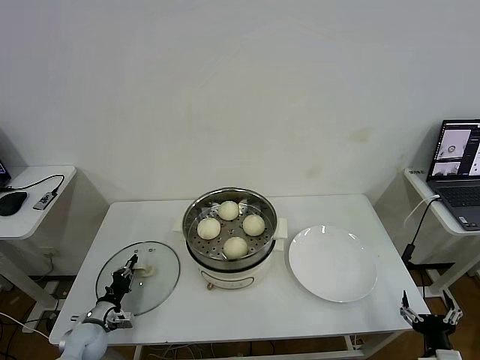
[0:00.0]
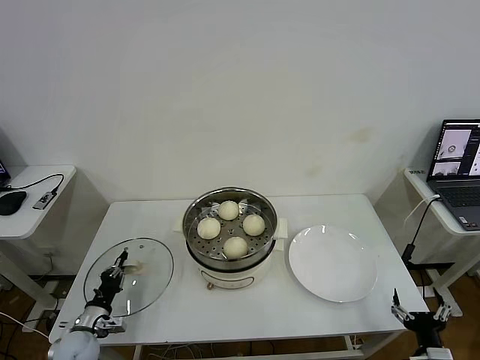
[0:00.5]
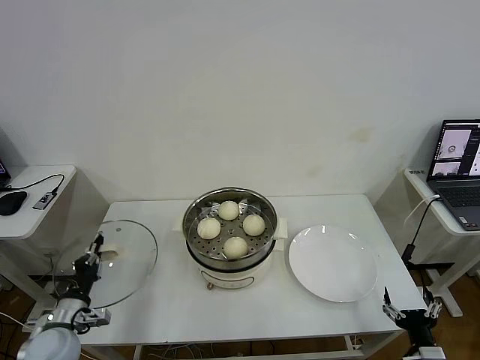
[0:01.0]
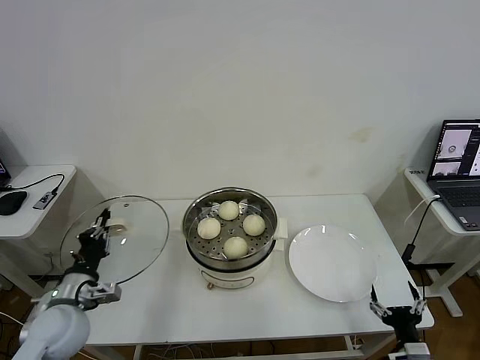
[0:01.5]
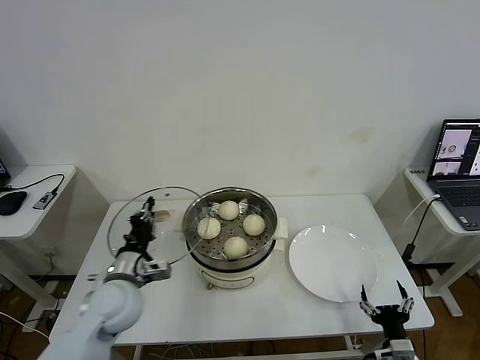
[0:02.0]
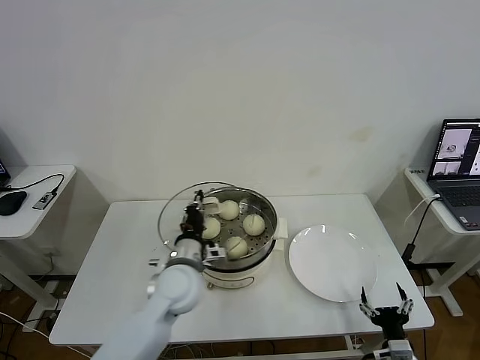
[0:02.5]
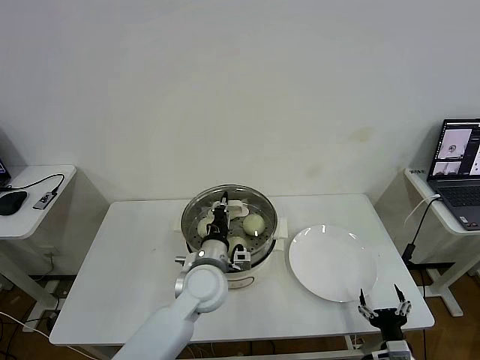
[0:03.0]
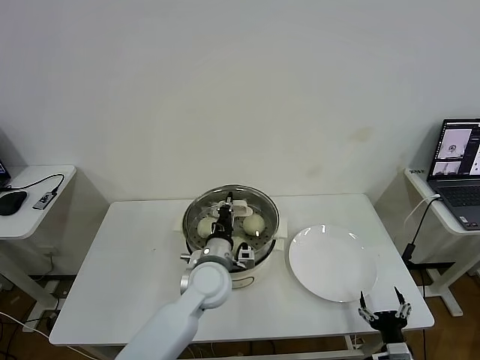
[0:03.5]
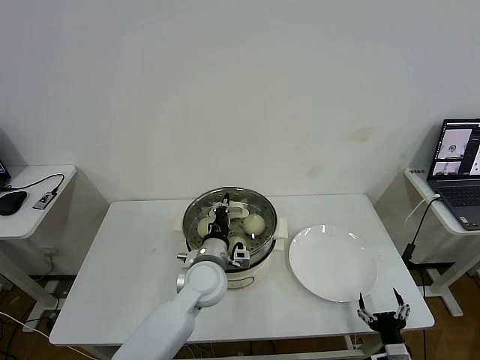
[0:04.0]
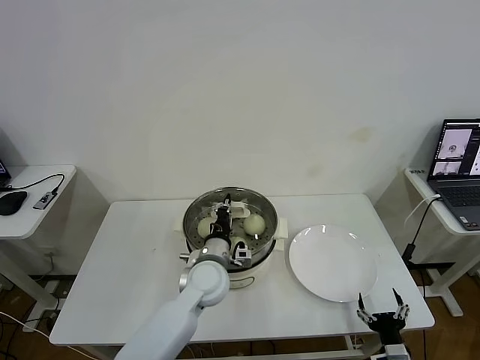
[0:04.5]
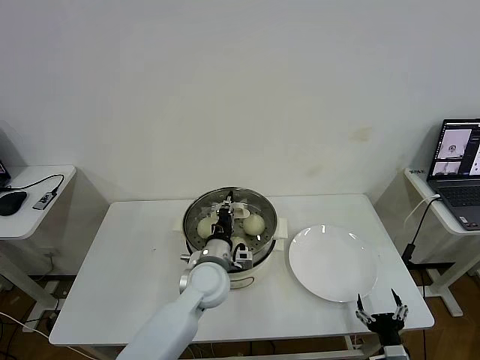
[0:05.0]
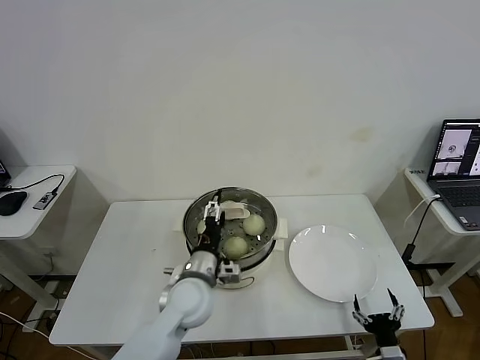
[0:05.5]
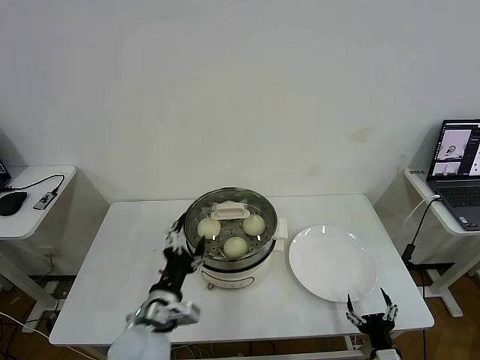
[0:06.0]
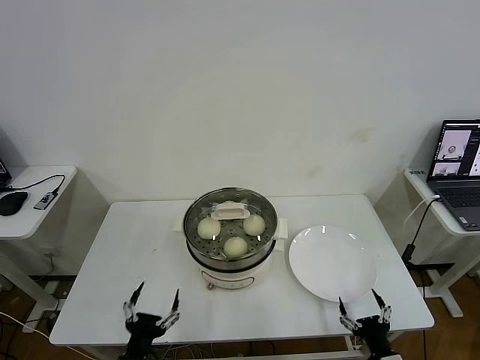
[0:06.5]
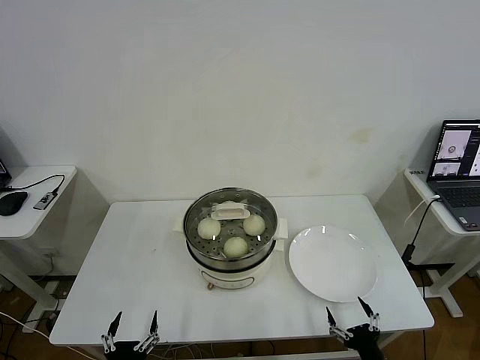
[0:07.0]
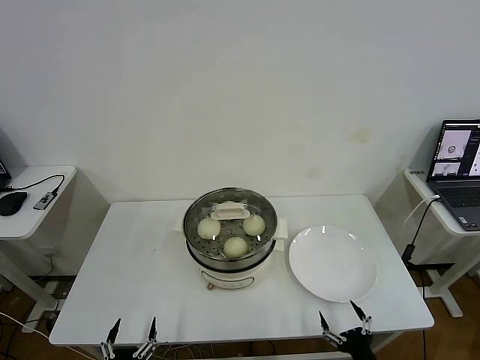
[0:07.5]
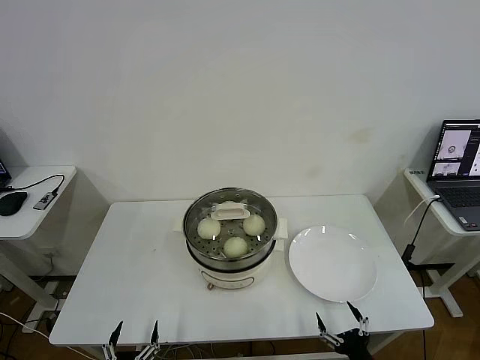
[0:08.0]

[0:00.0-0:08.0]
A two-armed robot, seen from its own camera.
Task of the whole recording: take steamed baozi put them in steamer then cover it.
Step, 0:00.5 to 0:05.5: Place the pot lid on the steamer with left gripper.
0:00.0 to 0:02.0: The right gripper goes approximately 5 cm to the left, while the left gripper heads upward and to the right, covering approximately 25 cm.
0:02.0 to 0:04.0: The left gripper travels to the right by approximately 15 cm.
0:04.0 to 0:06.0: The left gripper goes about 15 cm backward and to the left, and opens.
0:06.0 to 0:08.0: The left gripper heads backward, downward and to the left, covering approximately 25 cm; the right gripper moves roughly 5 cm.
